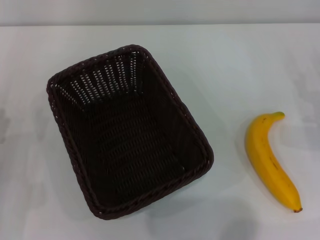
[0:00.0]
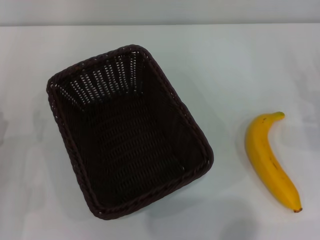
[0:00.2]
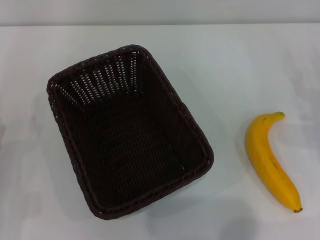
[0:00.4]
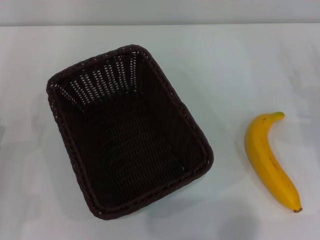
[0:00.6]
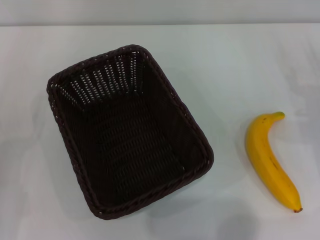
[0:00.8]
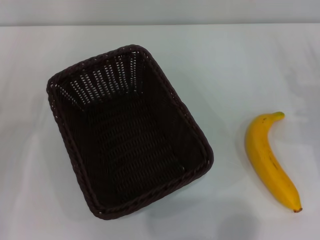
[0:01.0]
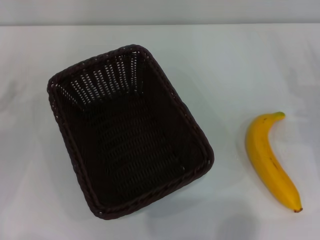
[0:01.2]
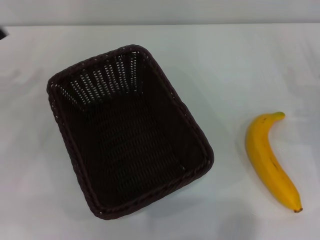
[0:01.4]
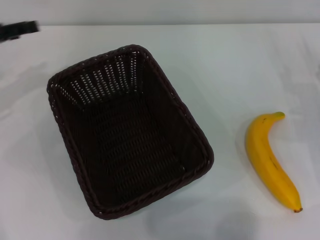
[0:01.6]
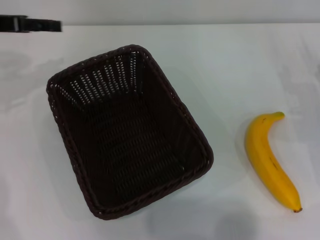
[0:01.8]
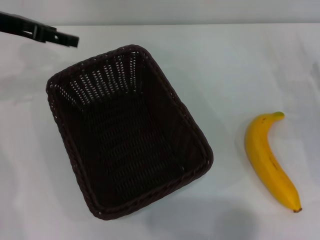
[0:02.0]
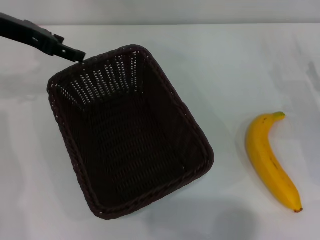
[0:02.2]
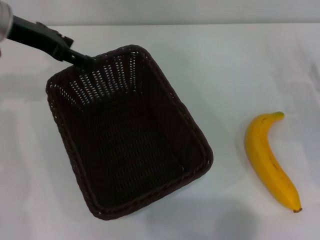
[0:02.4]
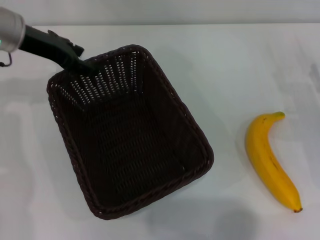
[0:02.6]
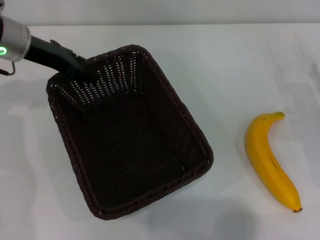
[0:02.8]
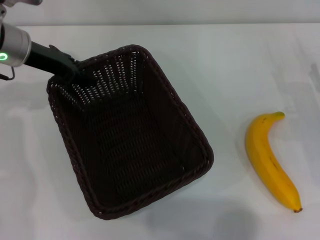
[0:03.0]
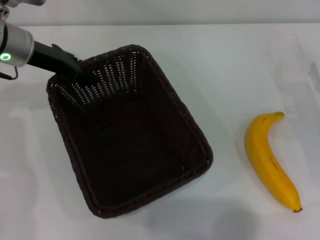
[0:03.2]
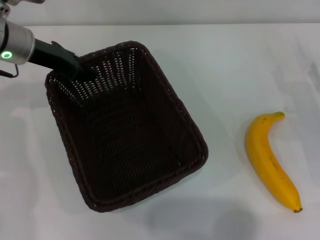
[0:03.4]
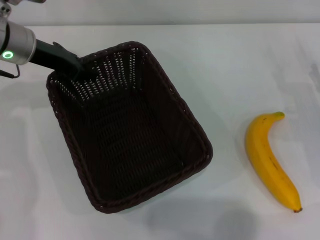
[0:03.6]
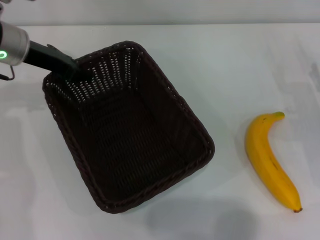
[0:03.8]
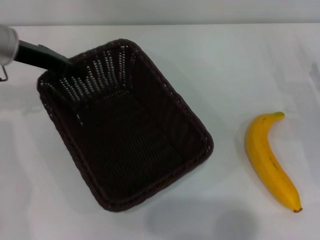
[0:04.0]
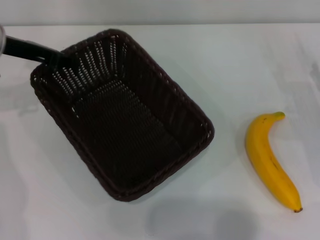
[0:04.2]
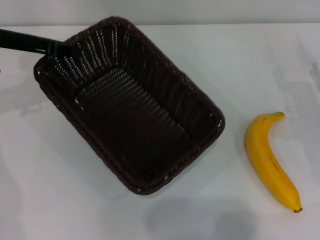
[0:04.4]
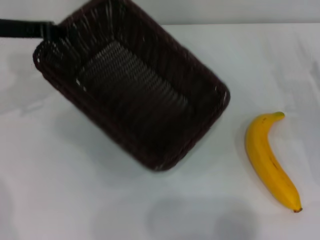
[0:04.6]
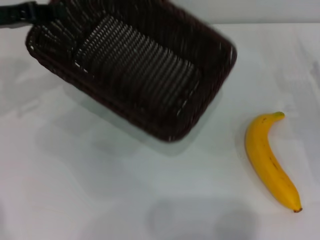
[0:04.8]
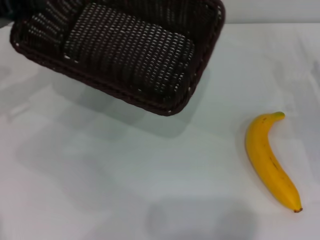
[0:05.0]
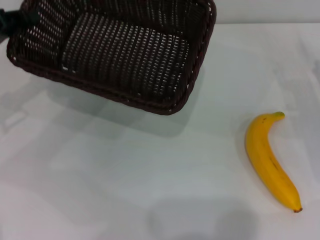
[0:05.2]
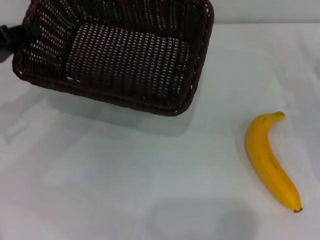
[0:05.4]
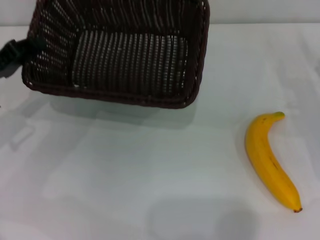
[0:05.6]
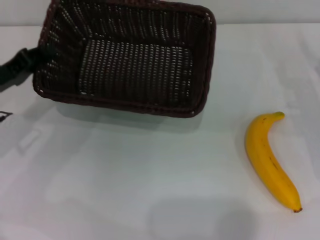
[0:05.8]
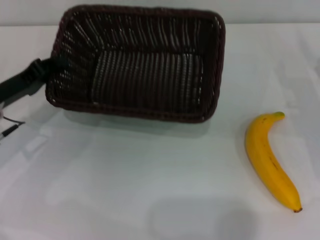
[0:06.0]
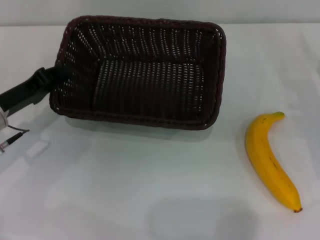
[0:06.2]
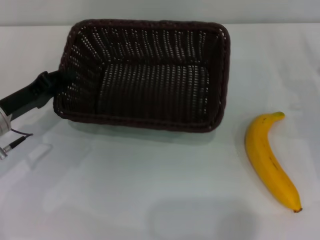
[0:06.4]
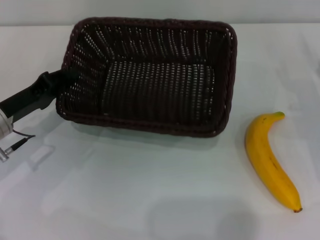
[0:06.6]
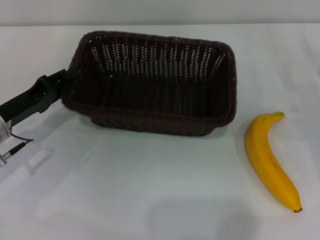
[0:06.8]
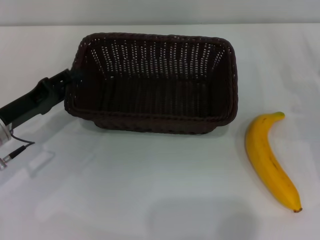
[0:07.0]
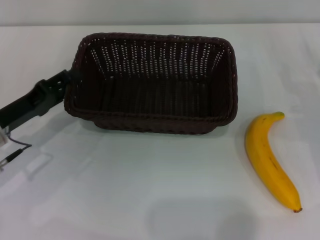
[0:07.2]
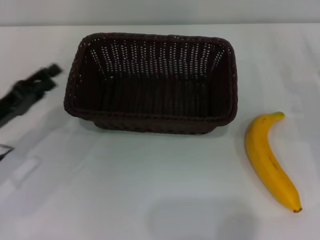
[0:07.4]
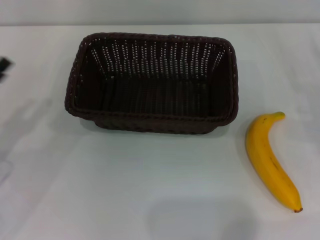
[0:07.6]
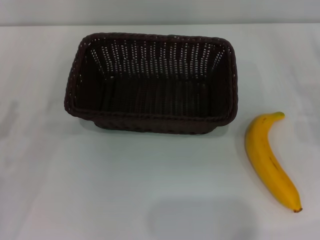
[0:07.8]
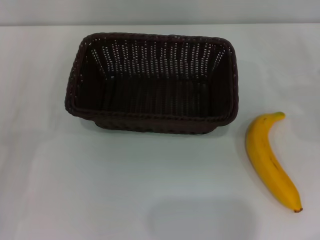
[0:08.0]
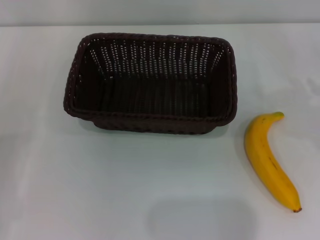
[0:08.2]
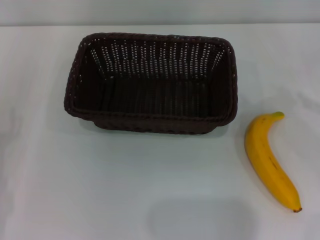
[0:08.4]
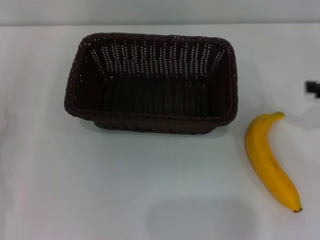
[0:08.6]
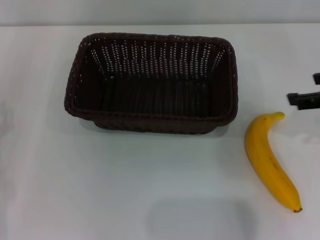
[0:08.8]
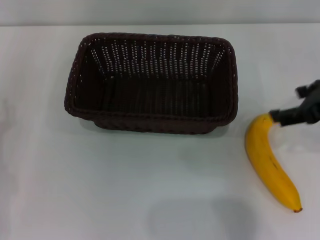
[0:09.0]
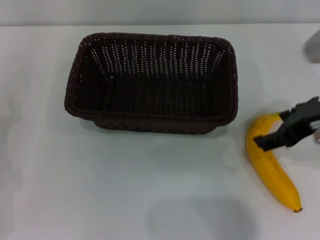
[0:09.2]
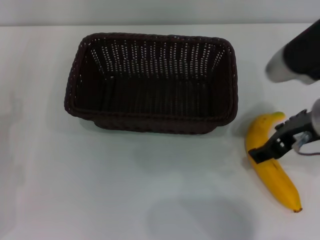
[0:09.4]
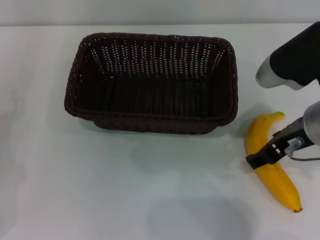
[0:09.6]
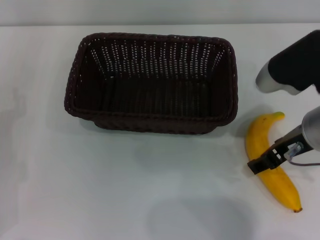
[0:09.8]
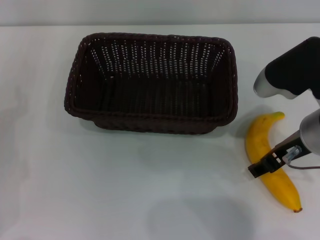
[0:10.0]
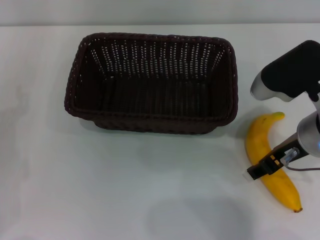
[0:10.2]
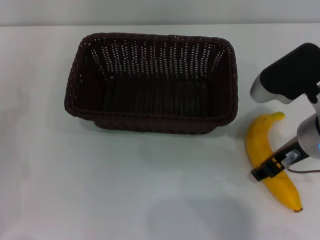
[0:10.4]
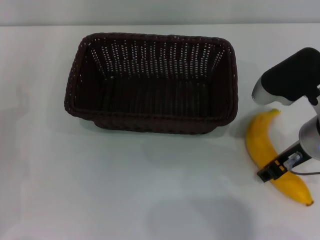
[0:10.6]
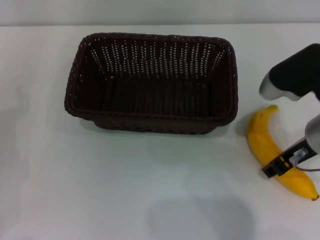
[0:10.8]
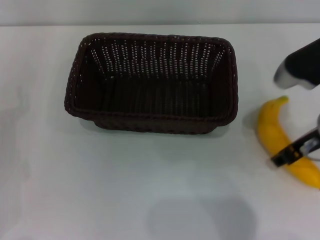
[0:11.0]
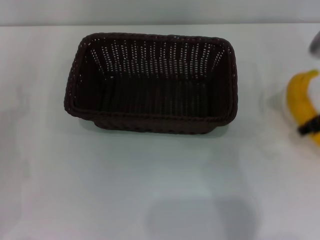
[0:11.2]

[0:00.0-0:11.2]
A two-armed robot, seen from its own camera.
Step, 0.0 to 4.0 s: Pick up the dark basket with the left gripper.
Step, 4.2 to 7.2 s: Place the dark basket in the center of view with the left gripper.
Step, 7.4 to 11.0 s: Pick up the banana with the right gripper.
0.0 to 1.6 s: The left gripper moves forward and upward, about 25 cm.
1.6 to 3.2 s: The left gripper is displaced to the right by roughly 10 cm, and closes.
3.2 to 4.8 s: The left gripper heads to the left, covering roughly 5 cm, and closes.
4.8 to 6.4 s: The left gripper is displaced downward and backward by roughly 15 cm.
6.4 to 8.0 s: The left gripper is displaced backward and to the left by some 15 cm, and opens up. The right gripper changes place by some 5 cm.
8.0 to 9.6 s: The right gripper goes approximately 25 cm to the left and upward.
9.6 to 11.2 s: The right gripper is displaced to the right by some 5 cm, and closes.

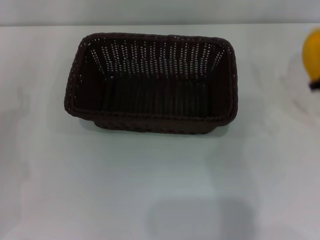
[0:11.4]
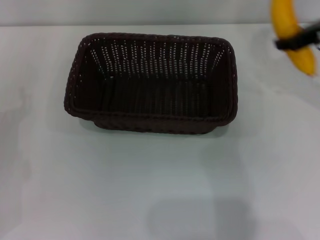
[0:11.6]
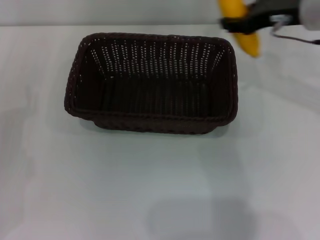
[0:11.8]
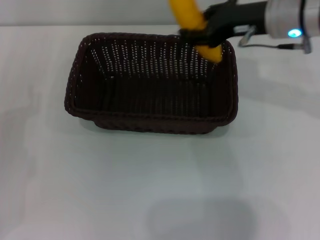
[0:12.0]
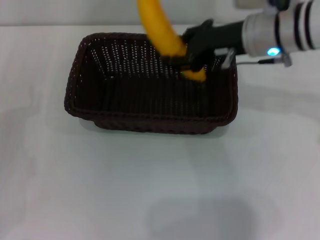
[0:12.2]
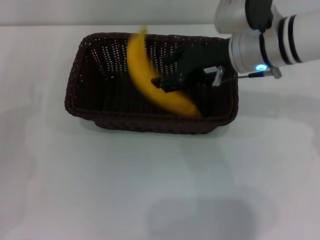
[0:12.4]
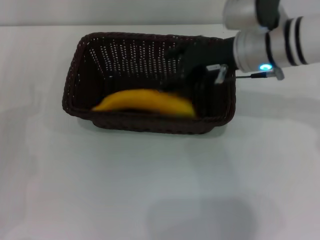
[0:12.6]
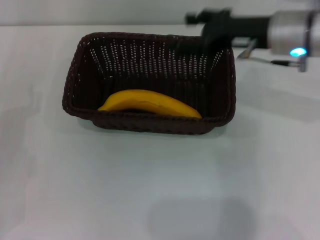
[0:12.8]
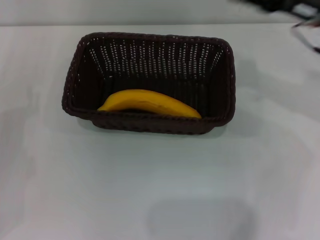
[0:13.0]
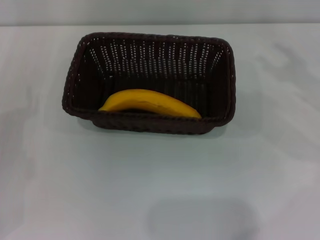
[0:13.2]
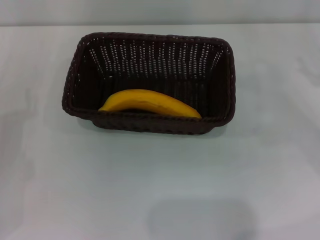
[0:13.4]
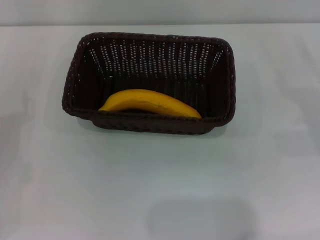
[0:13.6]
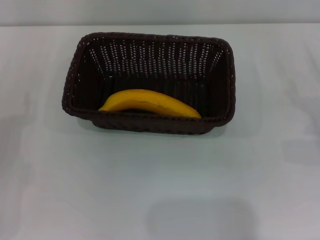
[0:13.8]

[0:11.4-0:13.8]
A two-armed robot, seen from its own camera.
Step, 11.4 to 12.4 s: Place the banana into the dark basket with the right gripper.
11.4 to 12.6 s: The right gripper travels to the left by roughly 15 cm, and opens its fingers.
12.6 to 13.8 s: The right gripper moves to the right, downward and backward, about 30 cm, and opens its fingers.

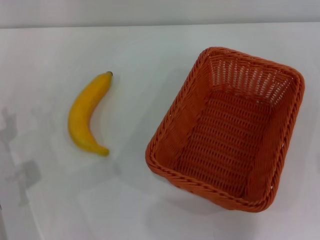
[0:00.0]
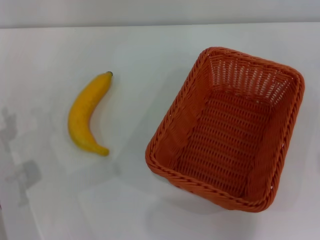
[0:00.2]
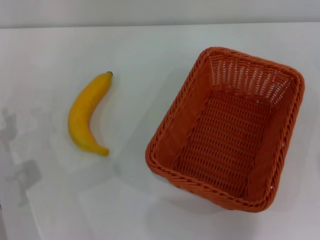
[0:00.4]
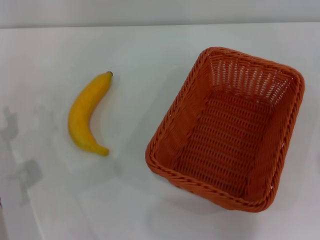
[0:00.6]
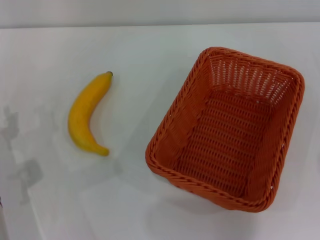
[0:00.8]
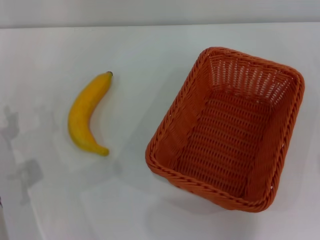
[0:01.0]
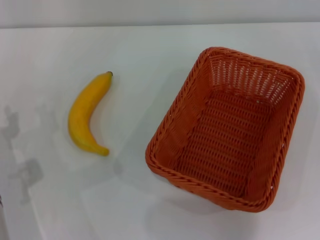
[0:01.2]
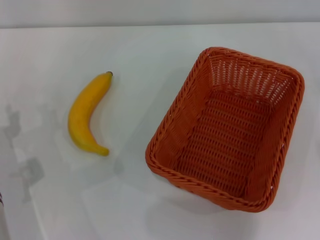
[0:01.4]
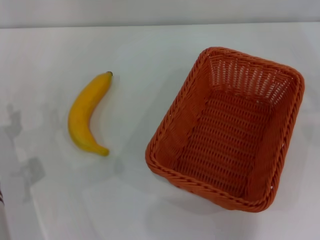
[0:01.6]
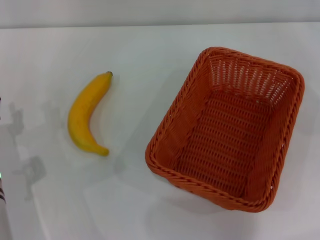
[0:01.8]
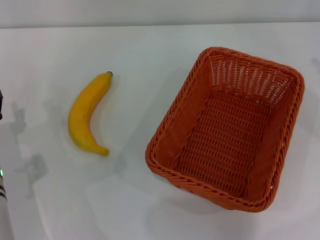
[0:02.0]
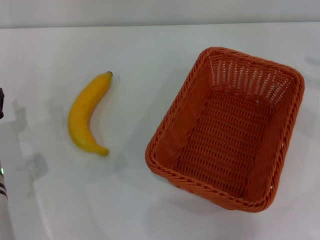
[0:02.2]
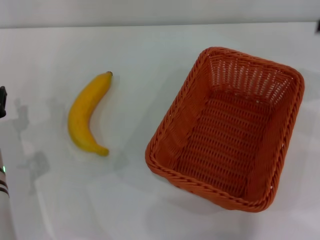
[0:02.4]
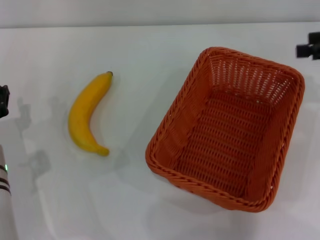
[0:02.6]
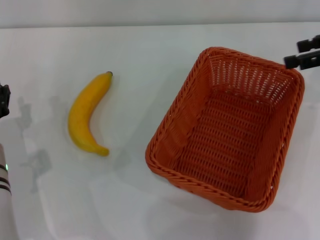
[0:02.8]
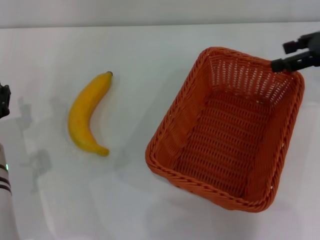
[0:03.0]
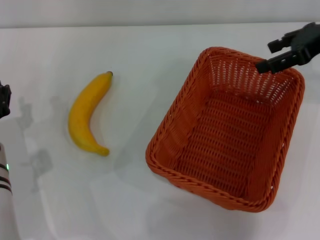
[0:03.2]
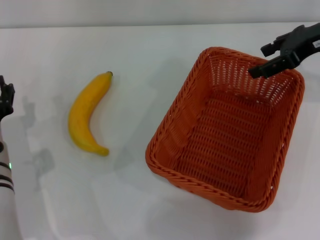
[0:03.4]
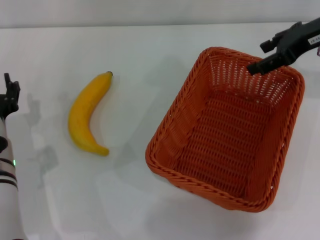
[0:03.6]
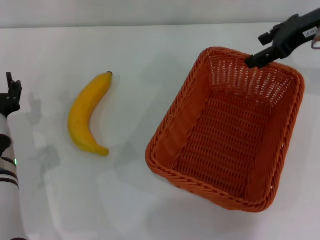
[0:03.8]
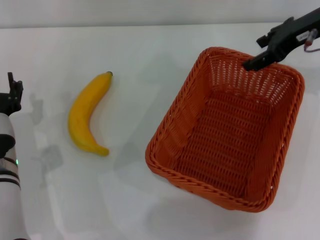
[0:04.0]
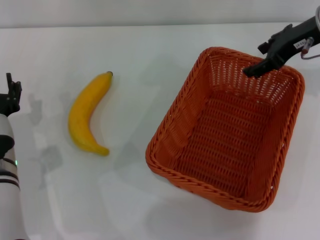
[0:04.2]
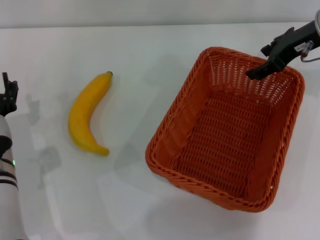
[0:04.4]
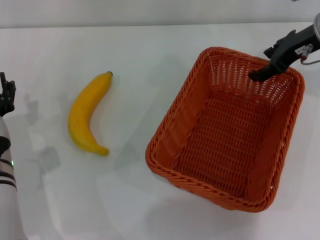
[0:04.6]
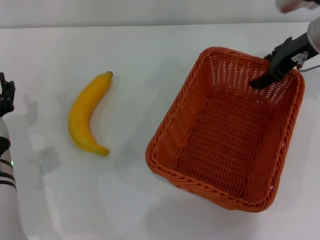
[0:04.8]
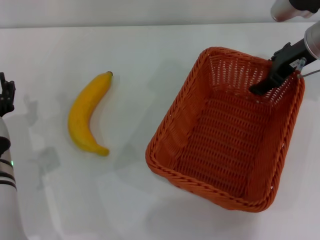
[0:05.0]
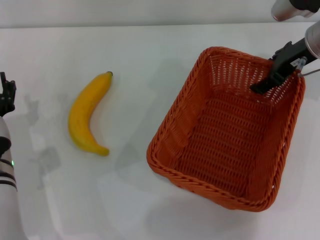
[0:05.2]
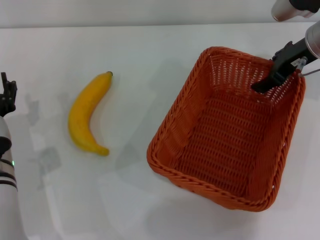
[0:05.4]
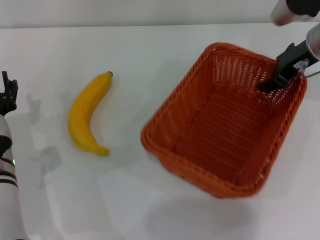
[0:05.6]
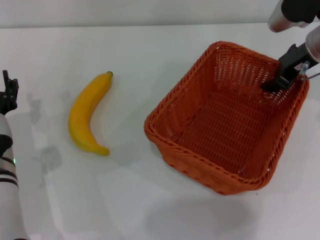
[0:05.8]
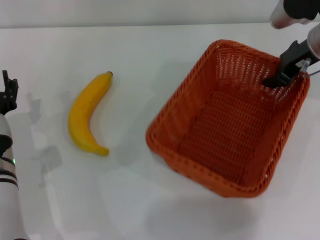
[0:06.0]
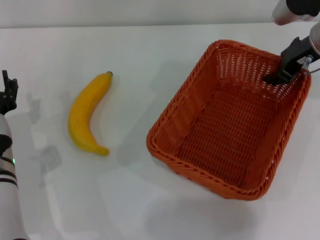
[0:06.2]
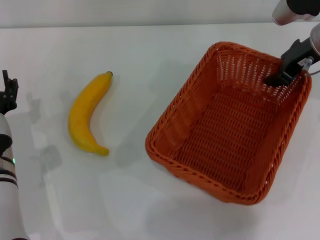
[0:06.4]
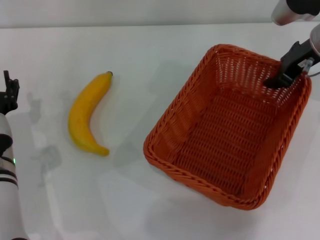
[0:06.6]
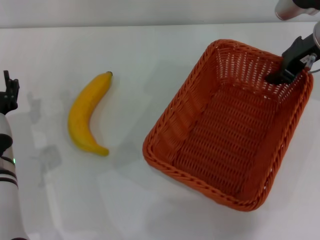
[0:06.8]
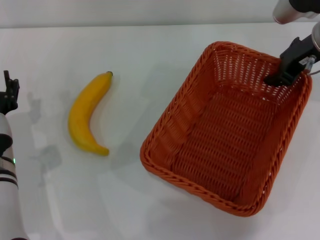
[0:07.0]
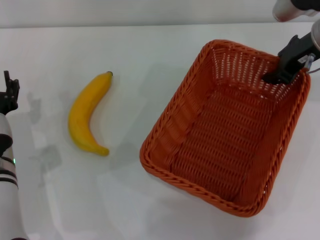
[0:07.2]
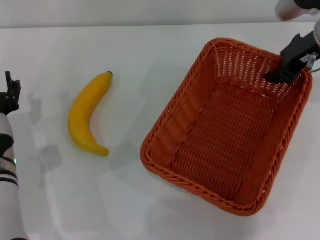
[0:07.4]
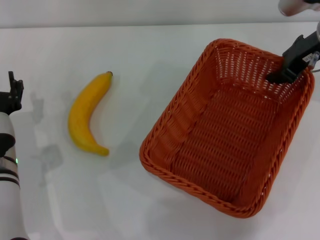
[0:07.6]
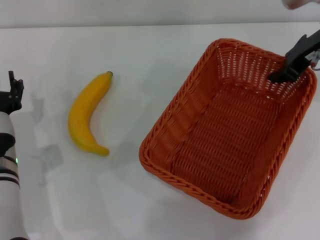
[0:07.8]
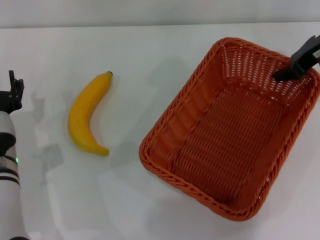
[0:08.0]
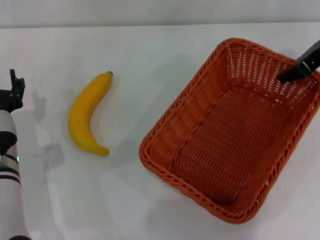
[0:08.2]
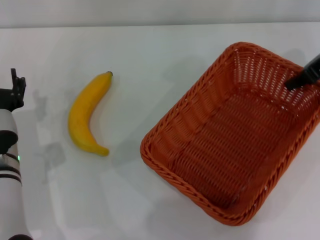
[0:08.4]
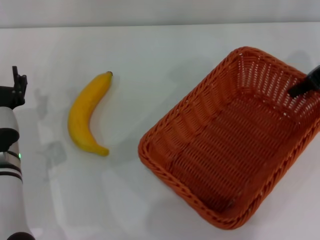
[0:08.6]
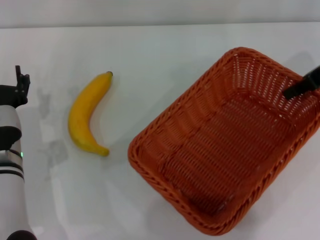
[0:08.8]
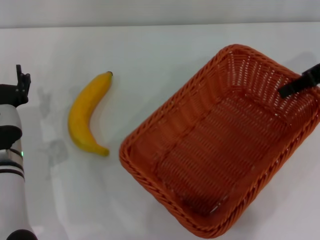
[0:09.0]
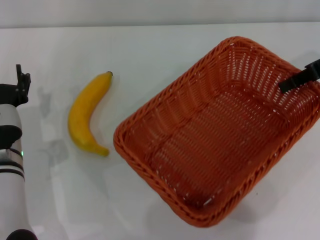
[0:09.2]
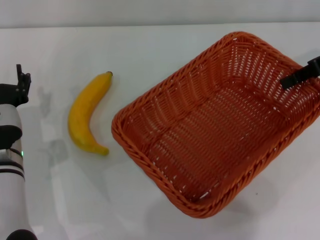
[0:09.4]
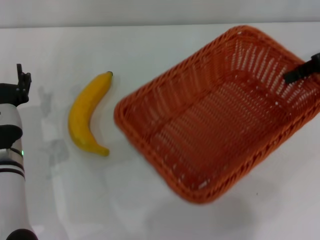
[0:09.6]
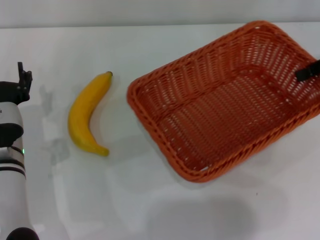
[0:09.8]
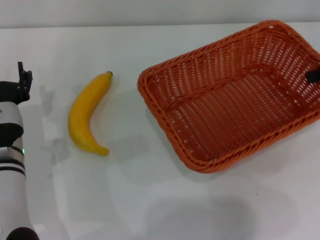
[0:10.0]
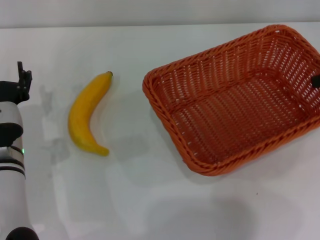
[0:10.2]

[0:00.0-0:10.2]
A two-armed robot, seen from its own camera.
Step, 0.0 to 7.0 s: Pick up the light basket with the right gripper.
1.4 to 3.0 s: The right gripper shifts about 20 cm to the left, upward and forward.
3.0 to 4.4 s: The right gripper travels to the left by roughly 5 cm.
4.4 to 5.8 s: The right gripper closes up.
5.8 to 7.2 s: The right gripper closes its fingers.
7.2 to 8.8 s: The right gripper goes some 5 cm to the right.
8.8 to 10.2 s: The right gripper travels to the right by approximately 10 cm.
